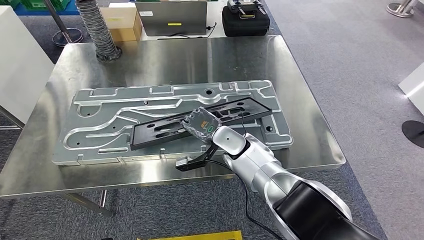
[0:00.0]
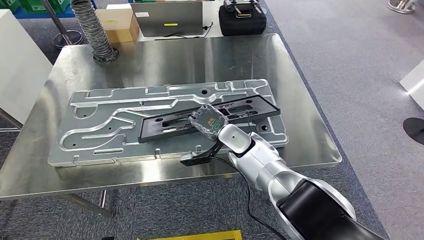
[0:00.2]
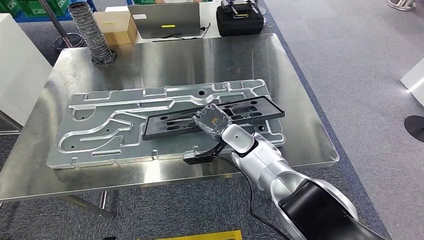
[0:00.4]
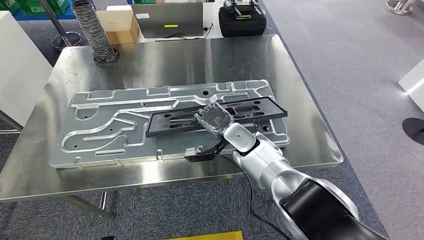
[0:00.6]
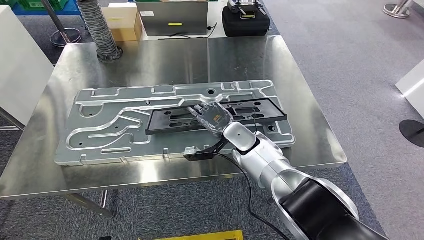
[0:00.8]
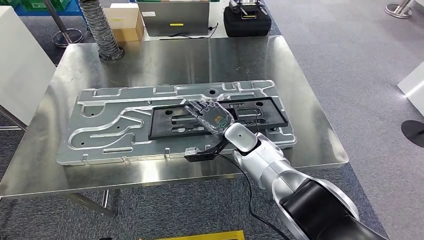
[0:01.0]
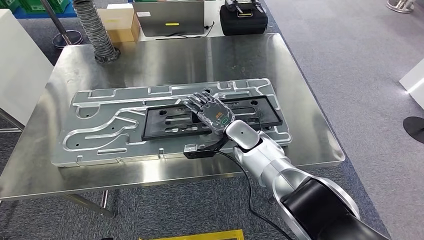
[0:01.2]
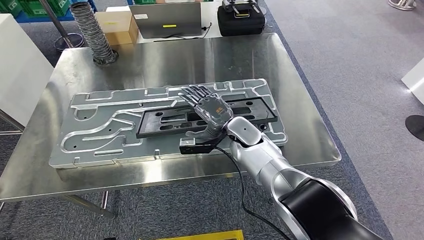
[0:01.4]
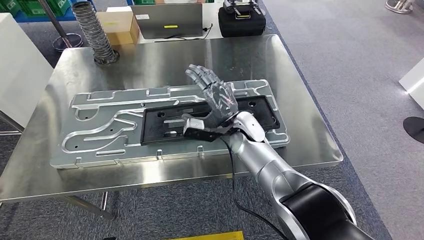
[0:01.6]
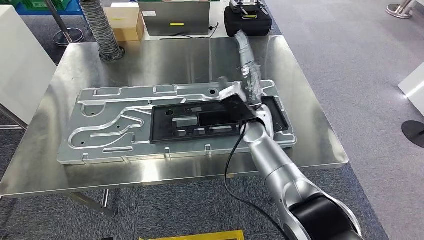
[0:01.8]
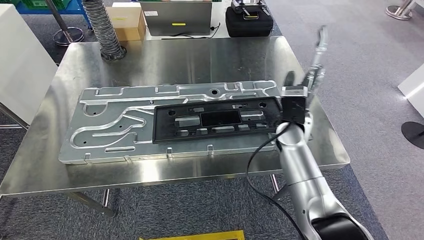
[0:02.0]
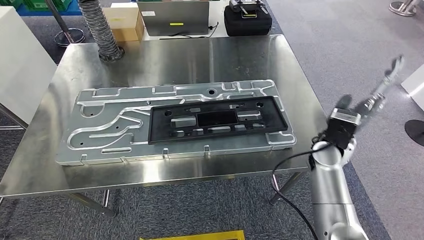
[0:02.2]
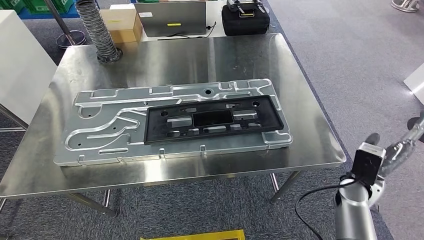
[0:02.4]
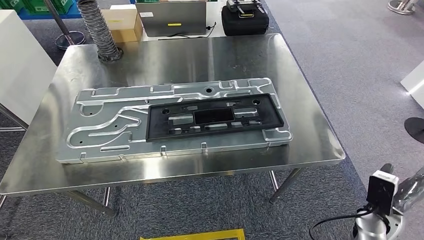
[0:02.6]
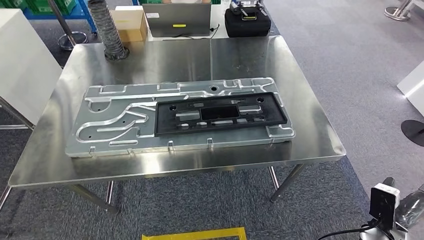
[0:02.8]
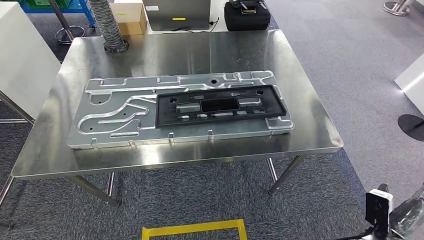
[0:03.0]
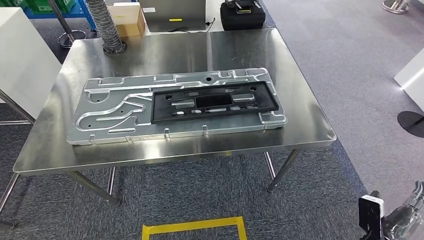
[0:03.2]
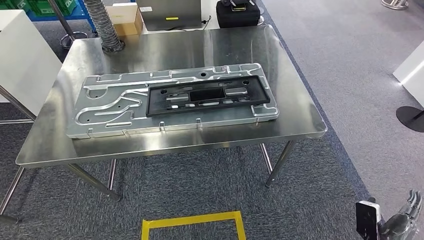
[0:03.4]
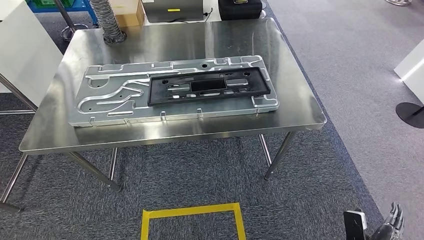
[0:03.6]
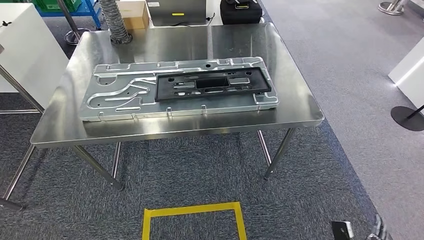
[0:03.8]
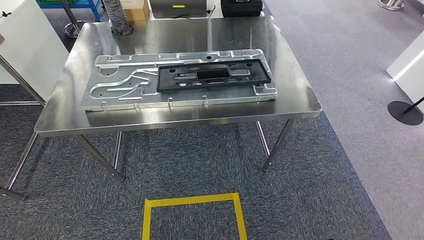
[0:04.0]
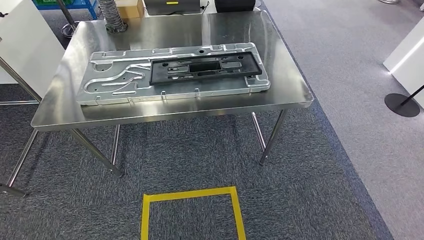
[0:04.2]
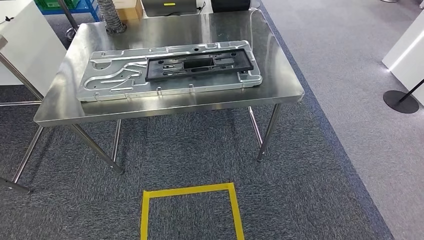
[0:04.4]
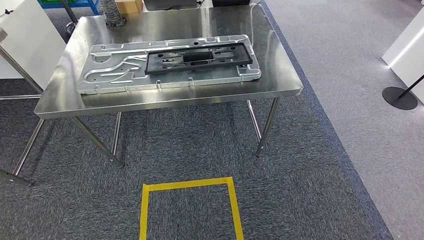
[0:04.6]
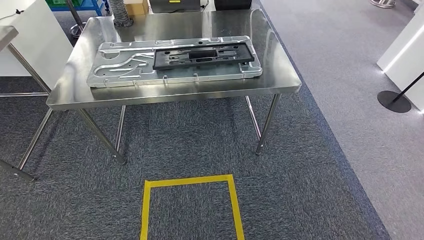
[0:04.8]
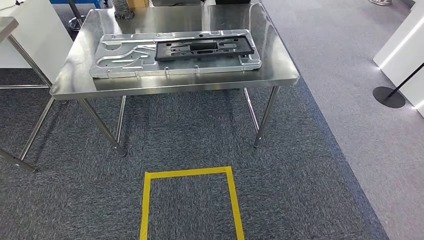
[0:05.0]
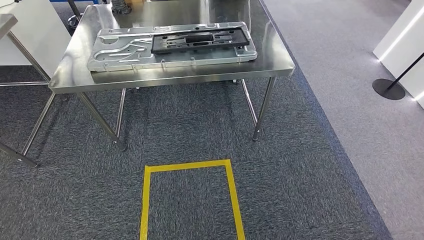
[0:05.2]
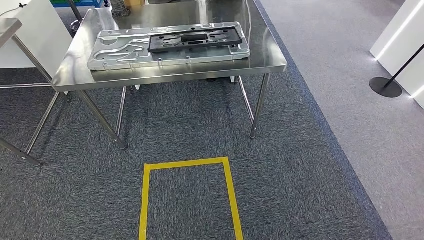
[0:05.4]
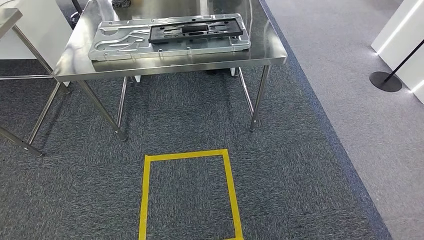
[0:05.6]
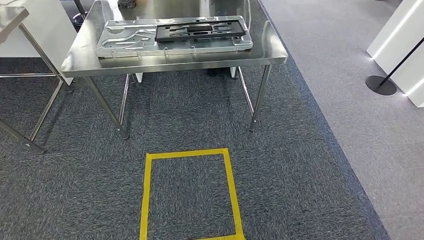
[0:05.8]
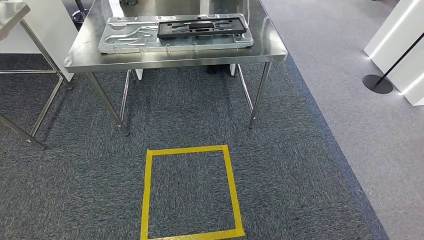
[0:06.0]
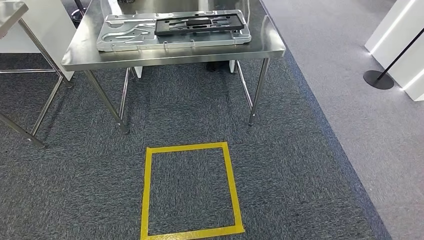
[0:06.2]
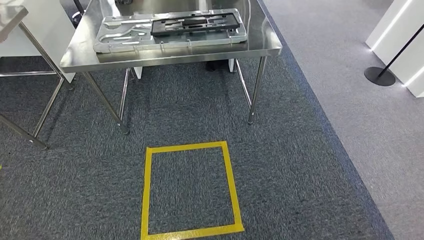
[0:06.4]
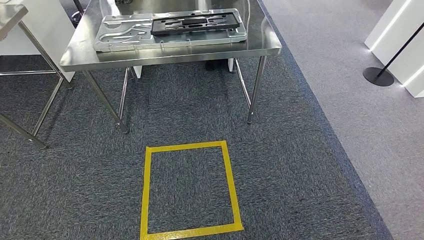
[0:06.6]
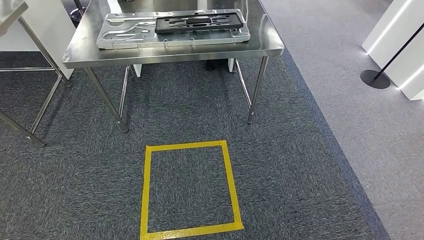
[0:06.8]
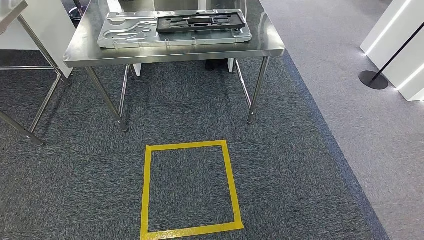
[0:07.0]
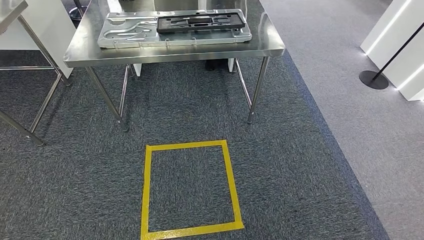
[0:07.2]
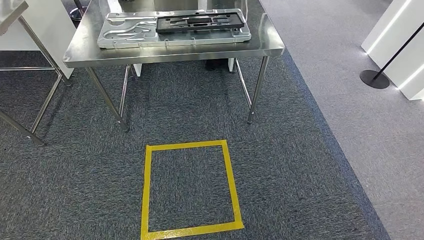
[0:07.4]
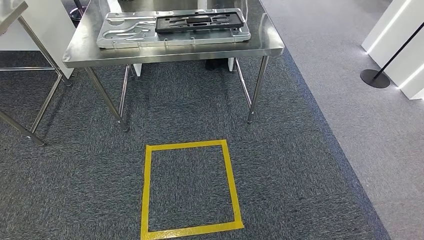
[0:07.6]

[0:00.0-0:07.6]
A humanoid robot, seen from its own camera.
Step, 0:00.0 to 0:02.2: Insert the large material into the corresponding slot on the workbench.
Step, 0:03.8 to 0:07.6: Move to the initial position of the shelf.
0:06.0 to 0:07.6: The hands stay close to where they were, moving slightly.
